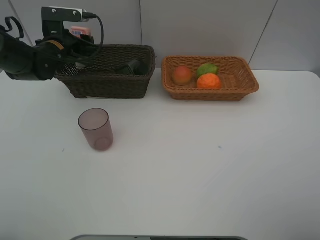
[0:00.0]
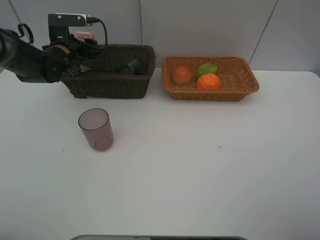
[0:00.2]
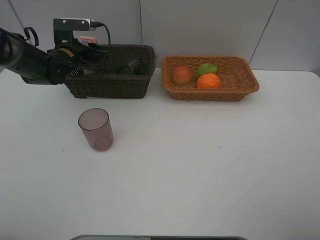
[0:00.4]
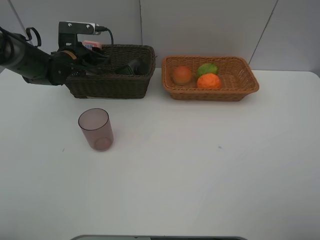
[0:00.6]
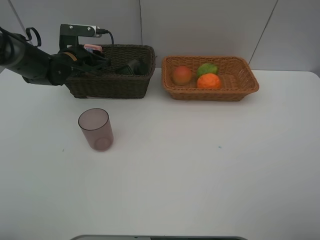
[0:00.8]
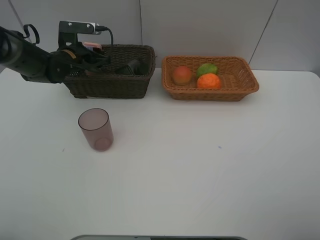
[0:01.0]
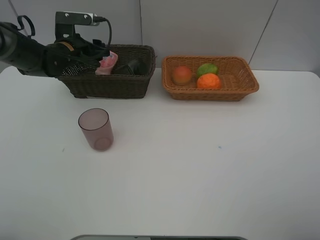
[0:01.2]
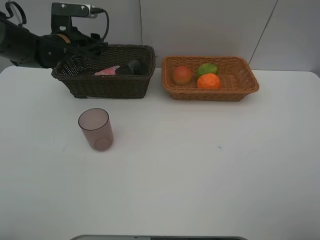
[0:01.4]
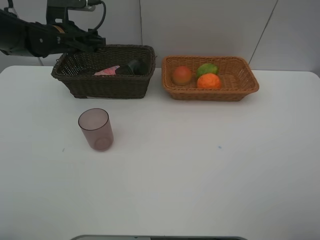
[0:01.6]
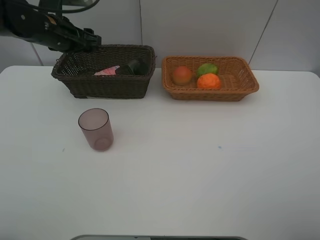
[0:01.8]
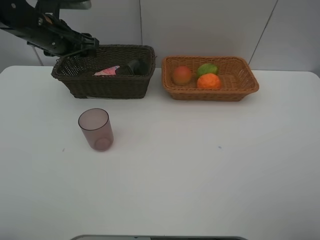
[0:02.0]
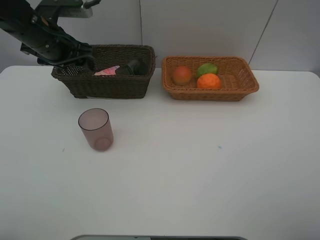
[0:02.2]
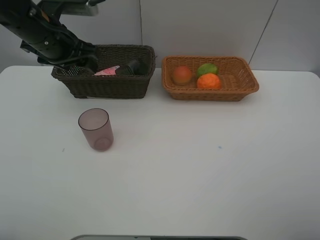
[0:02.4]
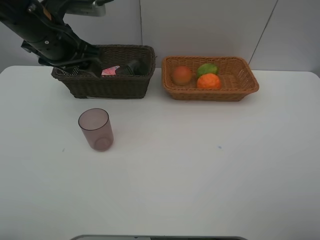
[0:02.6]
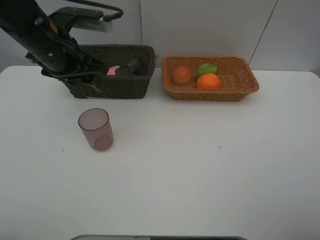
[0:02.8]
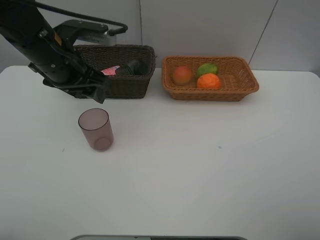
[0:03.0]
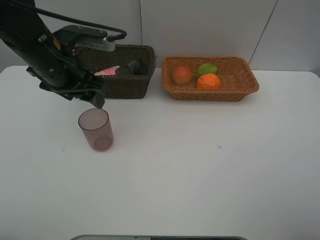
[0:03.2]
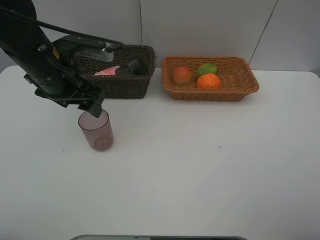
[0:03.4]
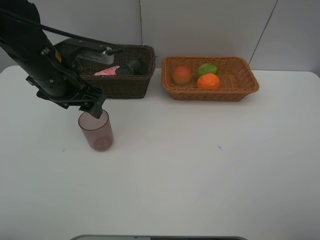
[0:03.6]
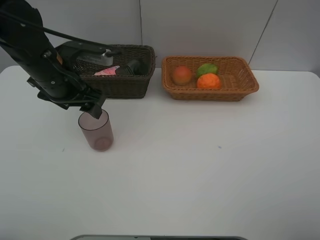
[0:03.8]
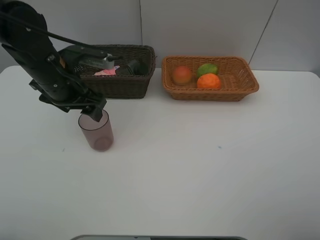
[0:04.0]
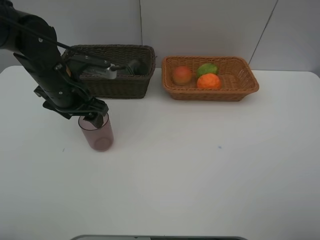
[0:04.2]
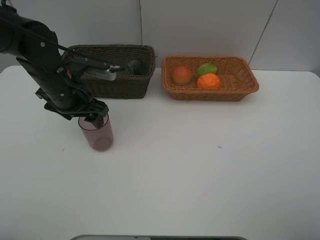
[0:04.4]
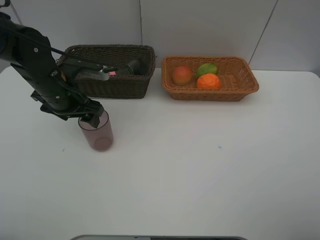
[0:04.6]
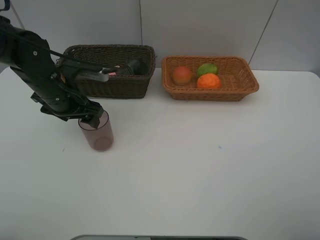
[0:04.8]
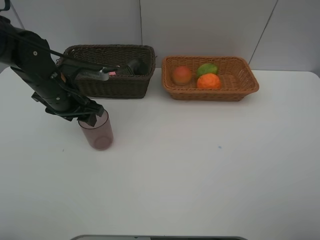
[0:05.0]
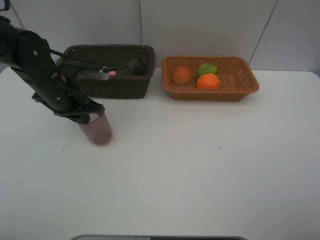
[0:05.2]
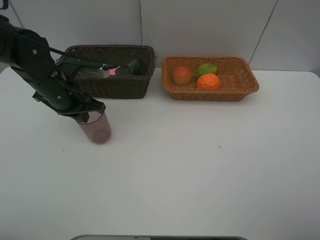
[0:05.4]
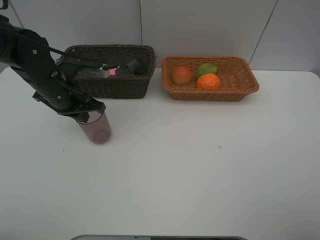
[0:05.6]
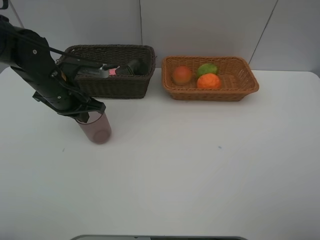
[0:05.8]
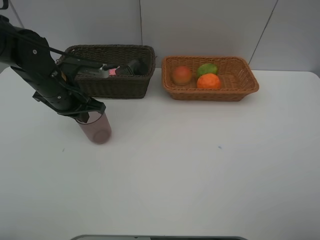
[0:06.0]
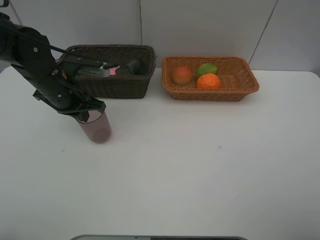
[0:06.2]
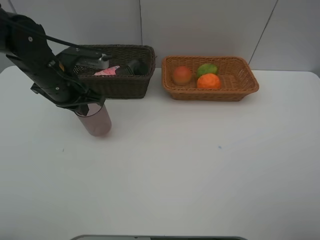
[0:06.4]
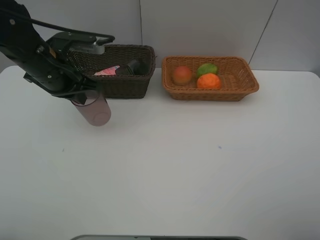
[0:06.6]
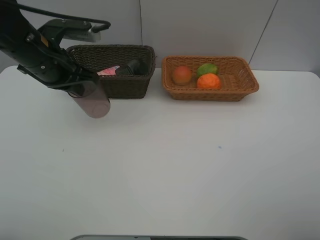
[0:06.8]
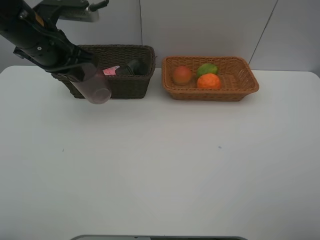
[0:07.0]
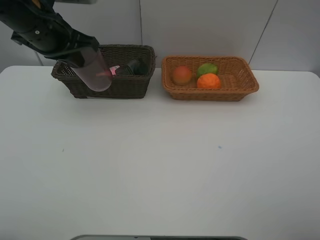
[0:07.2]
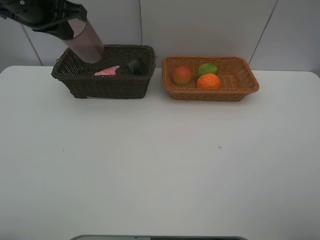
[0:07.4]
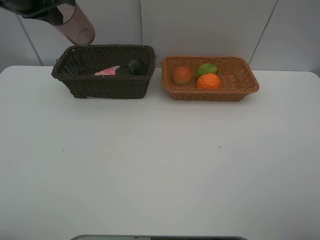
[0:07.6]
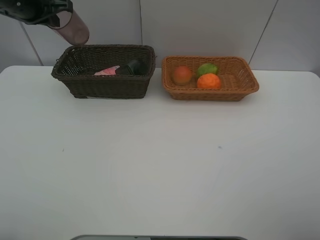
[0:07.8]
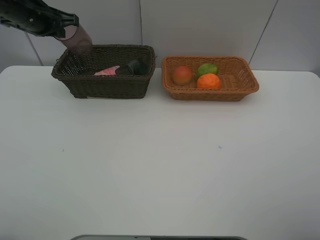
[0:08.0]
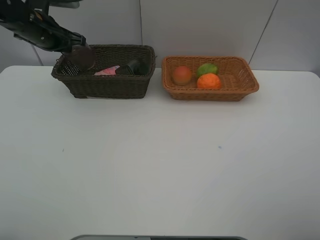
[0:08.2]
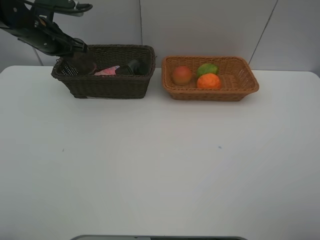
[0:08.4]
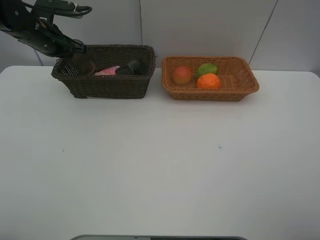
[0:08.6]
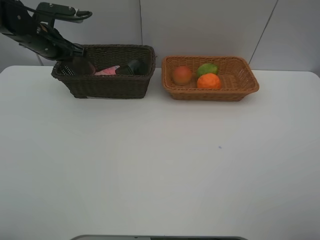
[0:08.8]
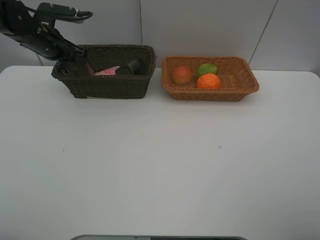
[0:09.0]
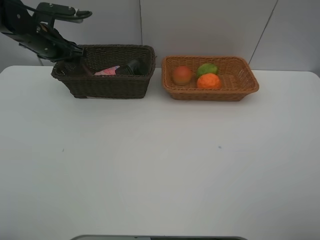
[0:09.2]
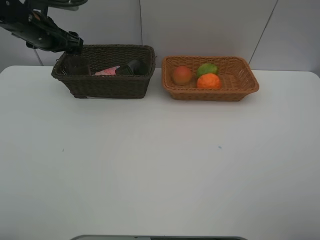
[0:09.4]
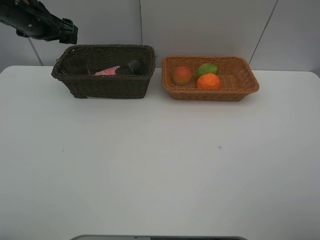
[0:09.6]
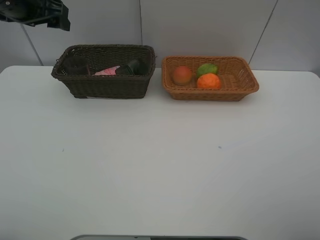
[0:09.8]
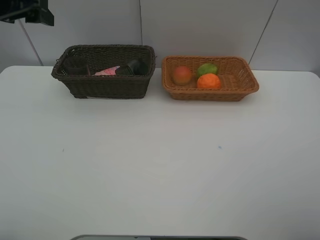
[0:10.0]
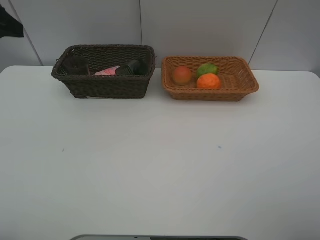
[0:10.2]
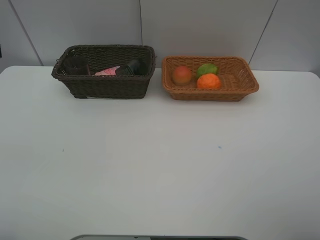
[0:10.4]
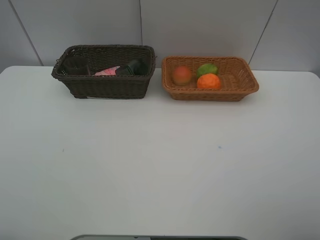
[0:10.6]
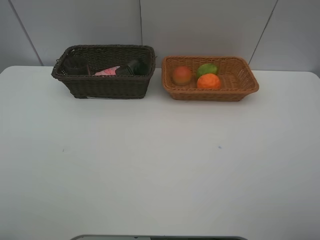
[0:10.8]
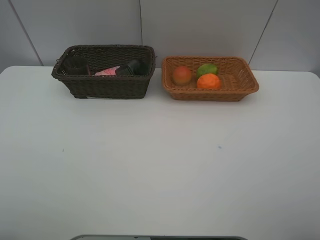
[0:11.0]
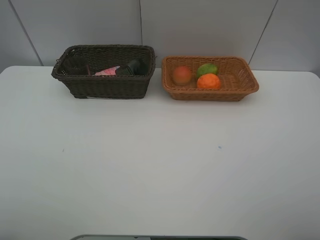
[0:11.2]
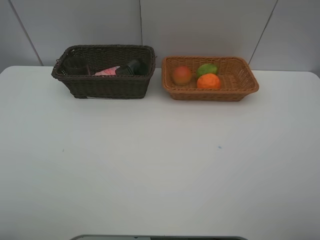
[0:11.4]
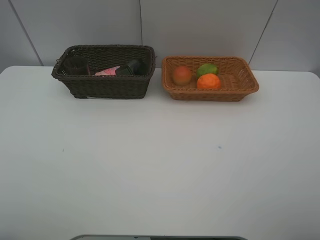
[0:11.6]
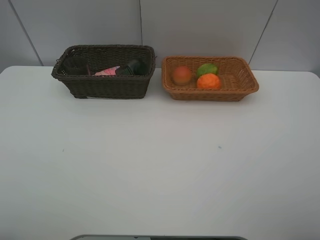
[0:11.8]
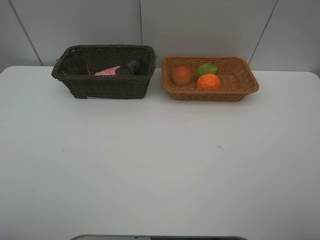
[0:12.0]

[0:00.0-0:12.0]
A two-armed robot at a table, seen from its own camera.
Task of the whole recording: place multiple objects separately in different baskets.
0:00.0 to 0:01.6: The grippers move only a little.
0:01.6 to 0:03.0: The left gripper is displaced backward and to the right by approximately 15 cm.
0:03.0 to 0:04.4: The left gripper heads downward, covering about 5 cm.
0:04.4 to 0:06.0: The left gripper closes up.
0:06.0 to 0:07.6: The left gripper shifts roughly 15 cm upward.
0:07.6 to 0:09.0: The left gripper moves downward and forward, about 15 cm.
0:09.0 to 0:10.4: The left gripper goes roughly 30 cm backward and upward, and opens its fingers.

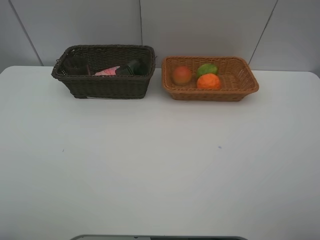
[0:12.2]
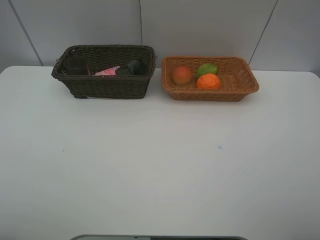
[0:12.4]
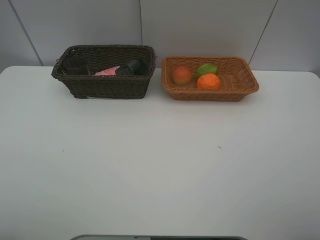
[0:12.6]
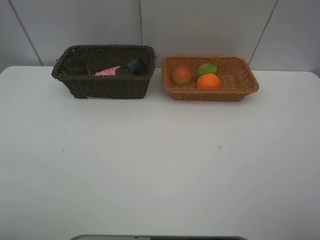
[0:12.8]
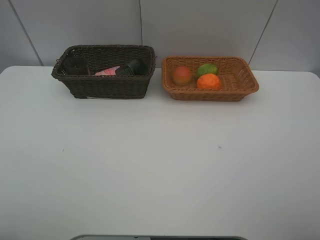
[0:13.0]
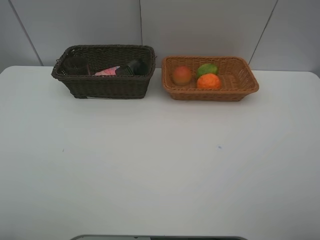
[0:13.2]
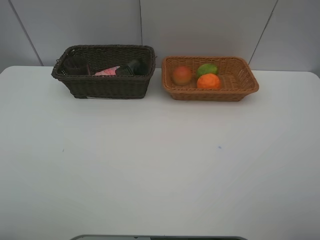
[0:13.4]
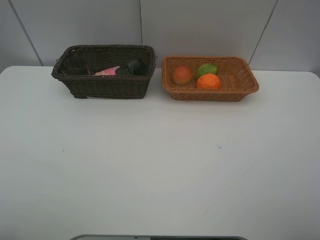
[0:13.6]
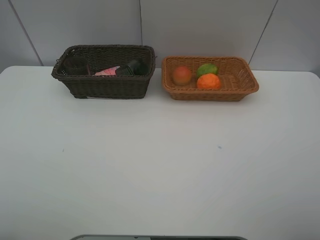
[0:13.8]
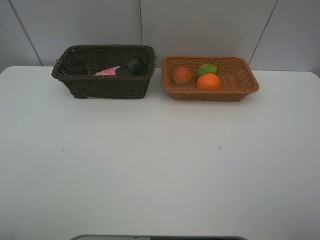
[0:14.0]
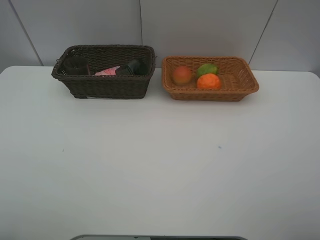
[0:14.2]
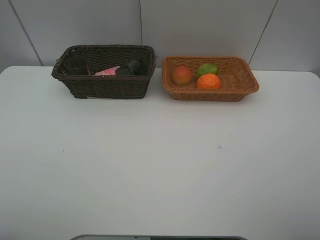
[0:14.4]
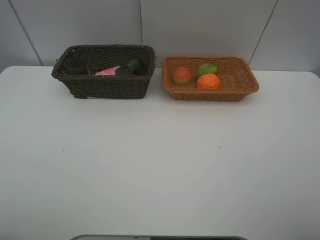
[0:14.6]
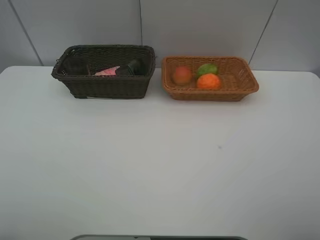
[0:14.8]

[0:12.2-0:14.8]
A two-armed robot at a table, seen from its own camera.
Task of the whole recording: place multiple objects separately in different baskets.
0:13.4 to 0:14.8: Neither gripper changes place.
